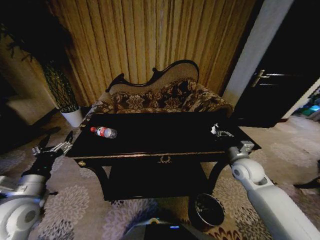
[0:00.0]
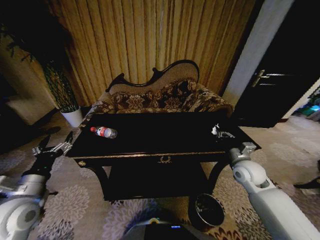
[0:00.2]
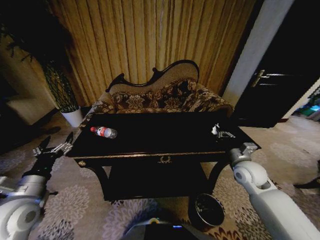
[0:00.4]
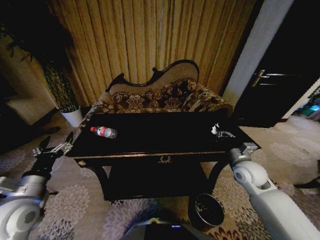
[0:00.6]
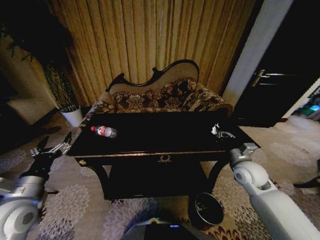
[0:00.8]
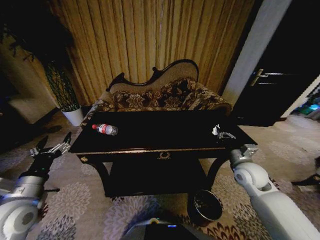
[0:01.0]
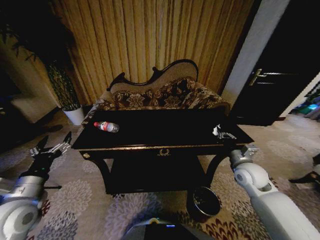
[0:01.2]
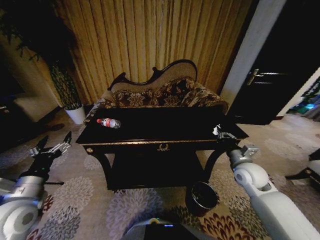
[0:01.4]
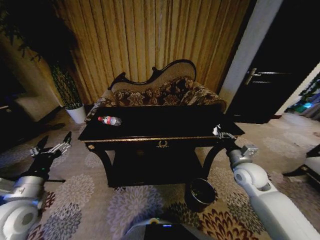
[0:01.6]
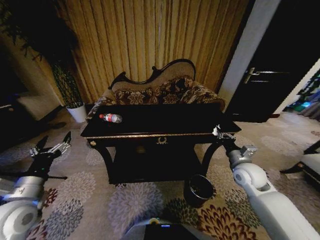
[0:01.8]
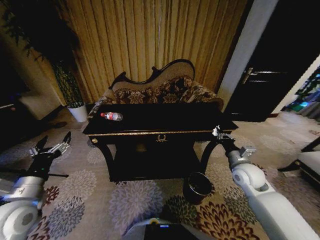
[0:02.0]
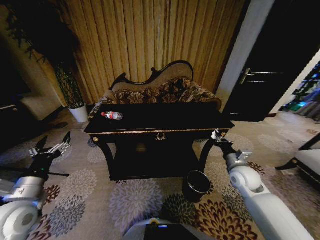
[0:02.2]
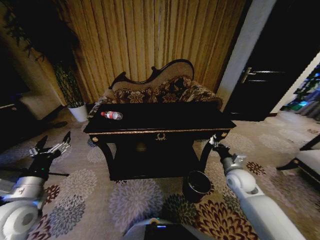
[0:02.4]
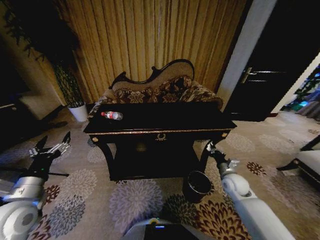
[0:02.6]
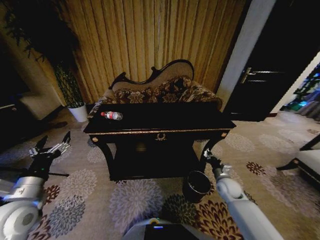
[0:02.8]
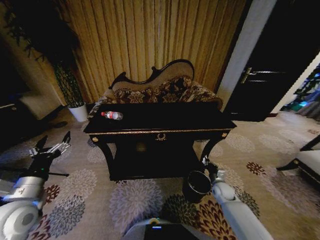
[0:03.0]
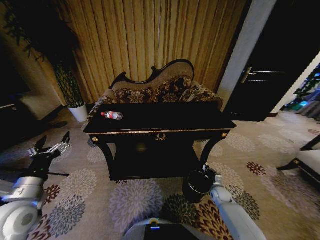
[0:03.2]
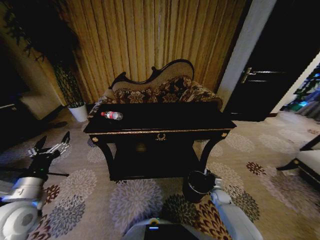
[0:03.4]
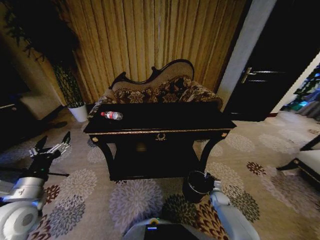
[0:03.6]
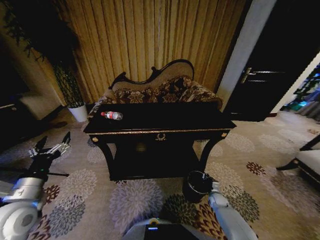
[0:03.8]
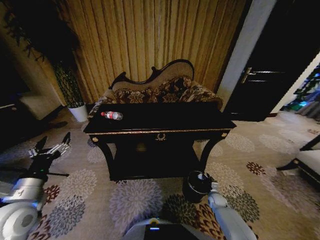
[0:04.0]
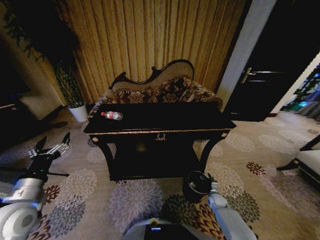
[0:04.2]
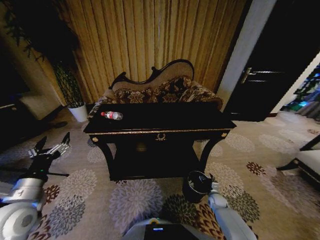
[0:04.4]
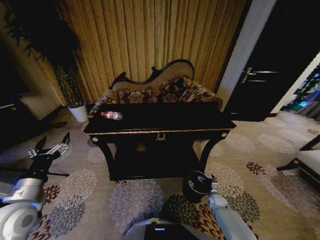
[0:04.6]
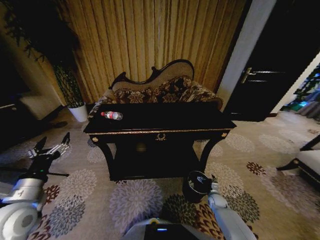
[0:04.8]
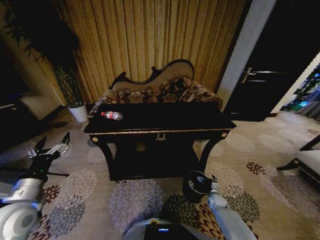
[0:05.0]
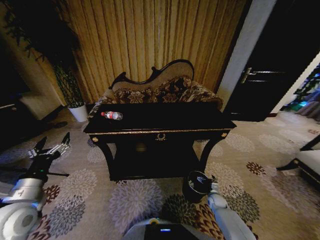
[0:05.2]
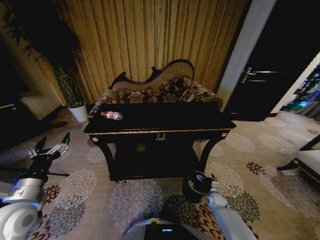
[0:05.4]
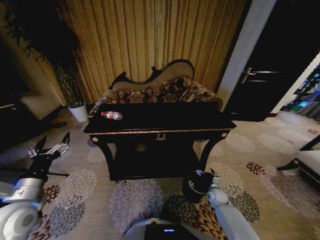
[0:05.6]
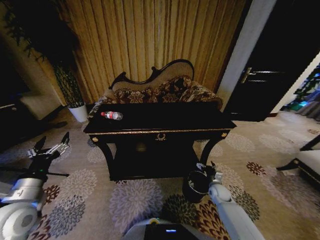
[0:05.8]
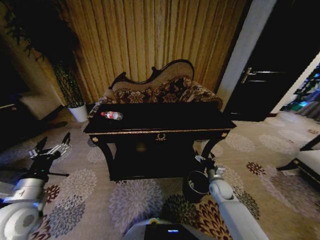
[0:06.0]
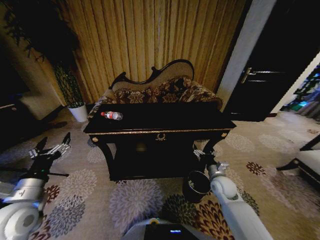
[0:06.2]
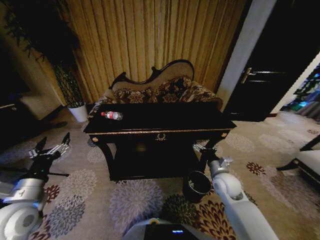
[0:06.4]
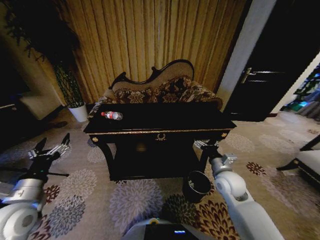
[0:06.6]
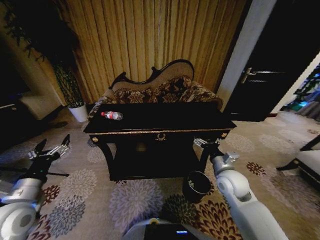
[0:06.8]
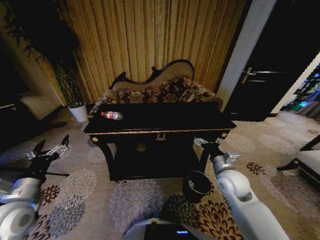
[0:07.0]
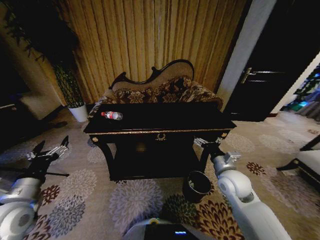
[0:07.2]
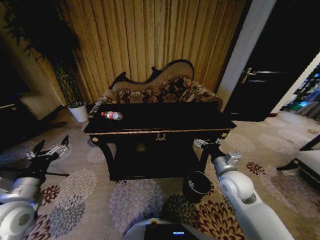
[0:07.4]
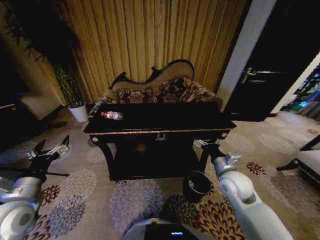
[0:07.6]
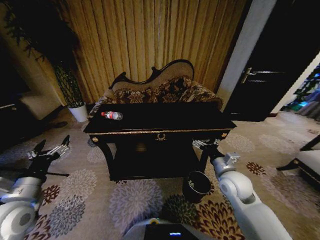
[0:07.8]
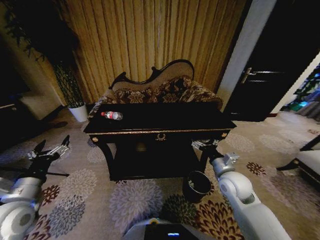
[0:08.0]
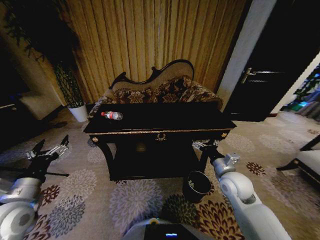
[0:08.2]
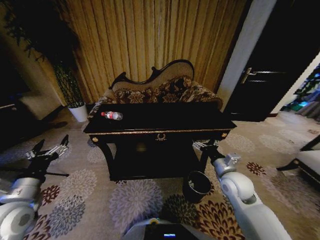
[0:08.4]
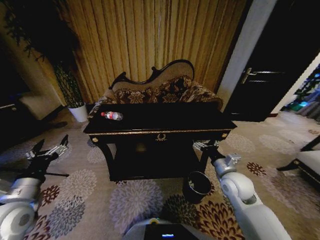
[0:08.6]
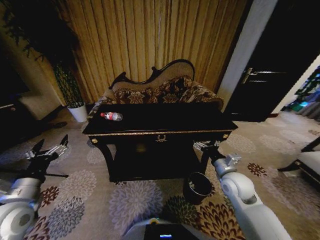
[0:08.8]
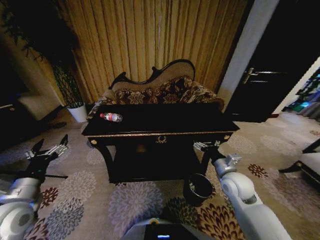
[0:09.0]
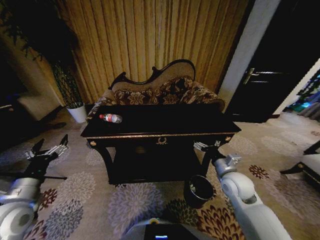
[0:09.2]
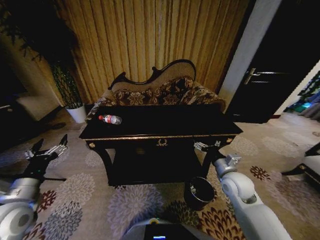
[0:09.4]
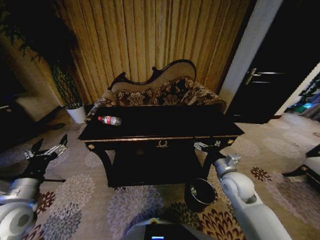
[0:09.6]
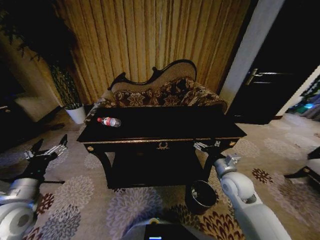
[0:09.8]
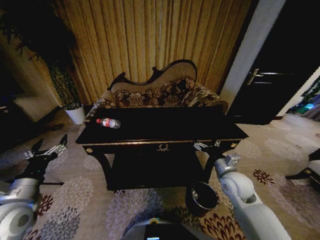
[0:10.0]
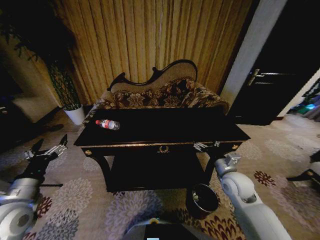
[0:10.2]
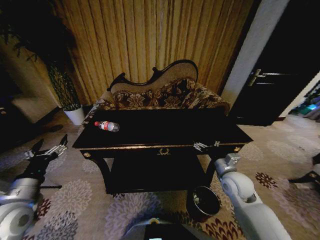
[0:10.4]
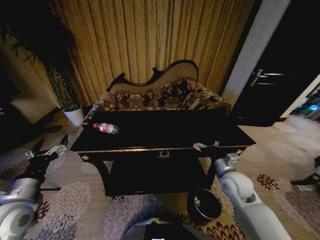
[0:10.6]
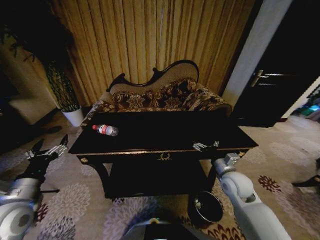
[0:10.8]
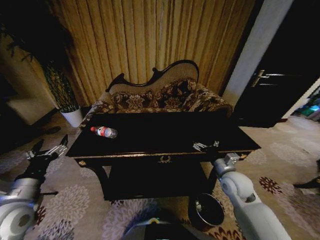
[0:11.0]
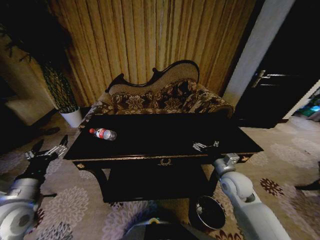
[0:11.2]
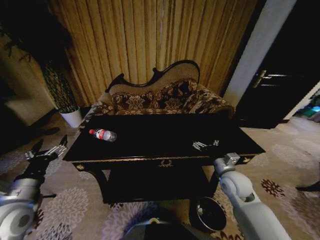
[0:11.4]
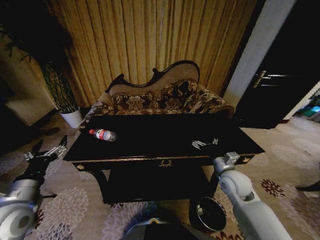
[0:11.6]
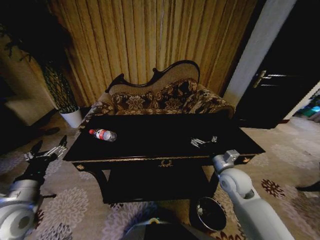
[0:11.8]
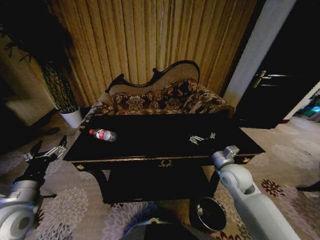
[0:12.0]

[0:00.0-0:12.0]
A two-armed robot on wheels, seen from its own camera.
Task of the whole recording: Move to the front of the table and place the trash on the table into the trash bin.
0:01.6 to 0:03.0: The right gripper moves downward, some 20 cm.
0:03.0 to 0:04.4: The right gripper is displaced downward by approximately 10 cm, and opens.
0:04.4 to 0:06.0: The right gripper travels upward by approximately 15 cm.
0:06.0 to 0:07.6: The right gripper heads upward, covering roughly 15 cm.
0:07.6 to 0:09.0: There are only small adjustments of the grippers.

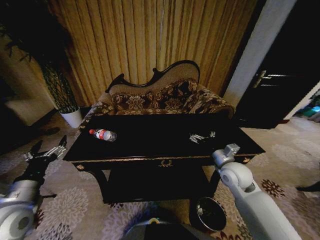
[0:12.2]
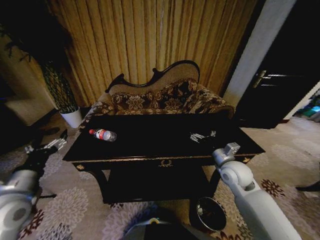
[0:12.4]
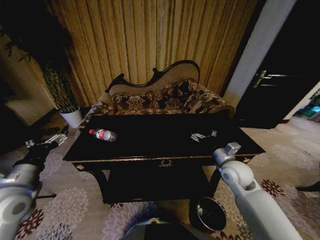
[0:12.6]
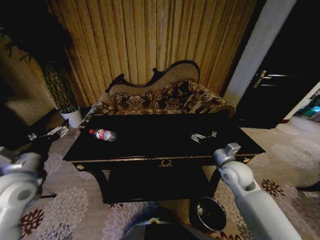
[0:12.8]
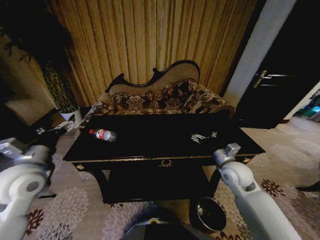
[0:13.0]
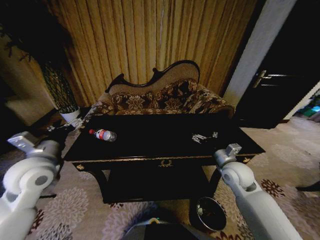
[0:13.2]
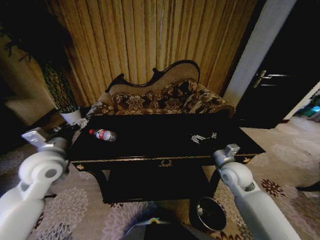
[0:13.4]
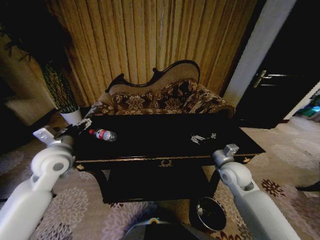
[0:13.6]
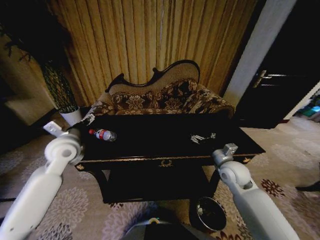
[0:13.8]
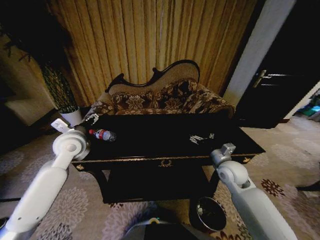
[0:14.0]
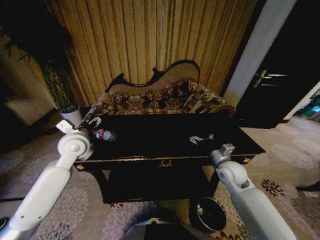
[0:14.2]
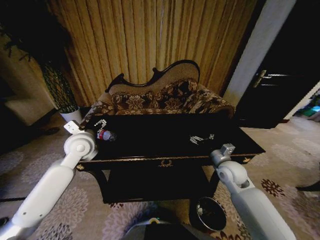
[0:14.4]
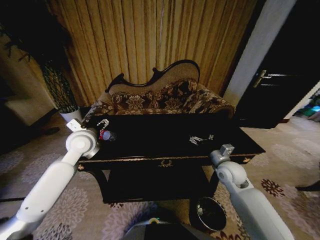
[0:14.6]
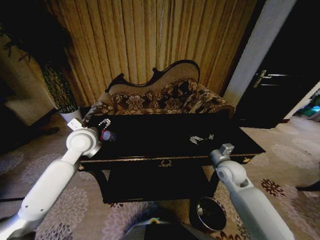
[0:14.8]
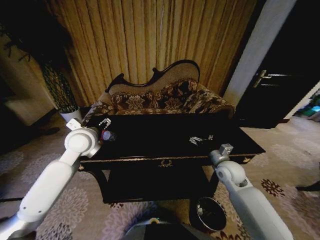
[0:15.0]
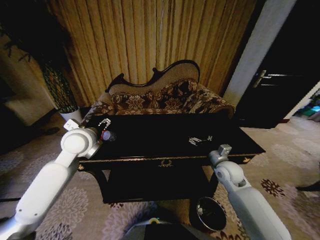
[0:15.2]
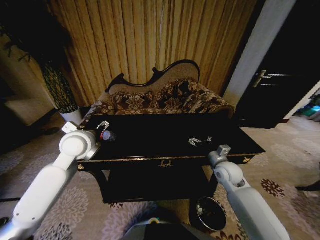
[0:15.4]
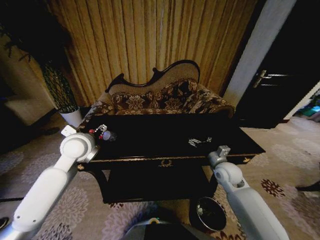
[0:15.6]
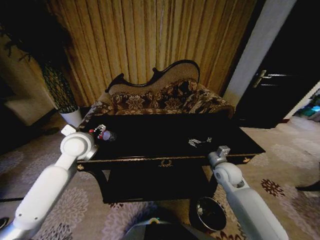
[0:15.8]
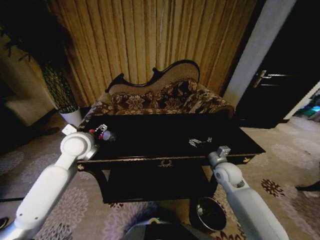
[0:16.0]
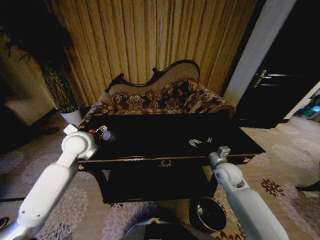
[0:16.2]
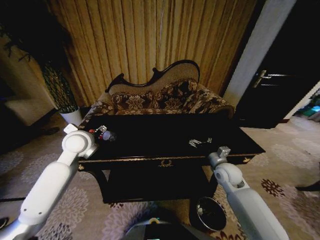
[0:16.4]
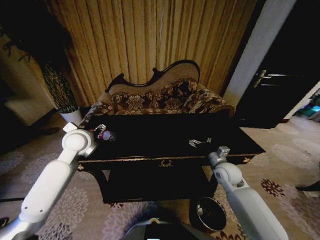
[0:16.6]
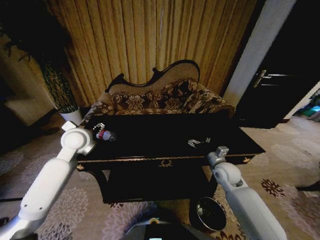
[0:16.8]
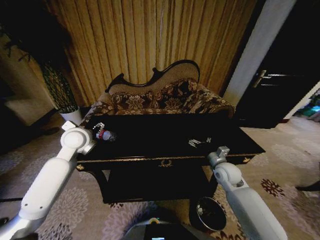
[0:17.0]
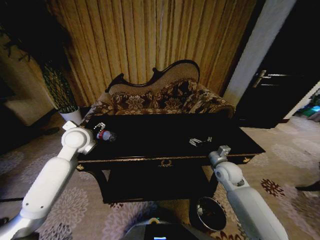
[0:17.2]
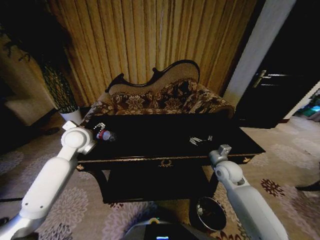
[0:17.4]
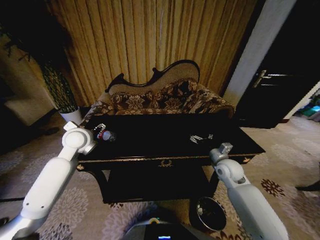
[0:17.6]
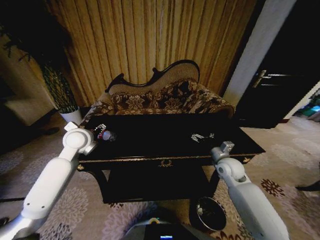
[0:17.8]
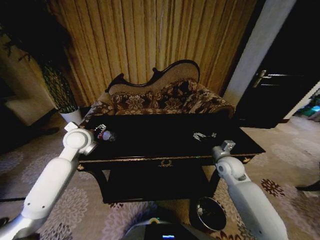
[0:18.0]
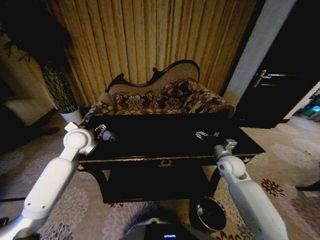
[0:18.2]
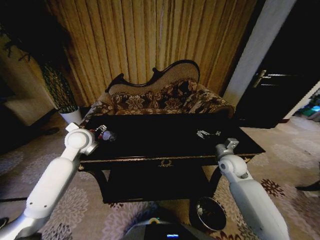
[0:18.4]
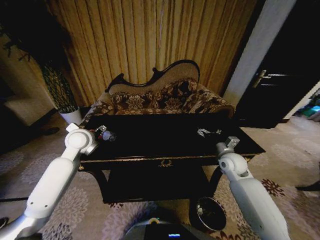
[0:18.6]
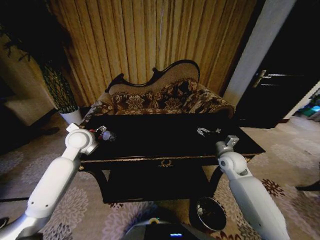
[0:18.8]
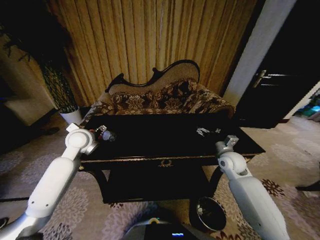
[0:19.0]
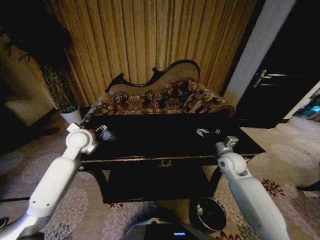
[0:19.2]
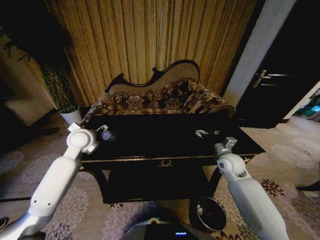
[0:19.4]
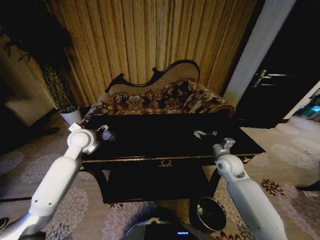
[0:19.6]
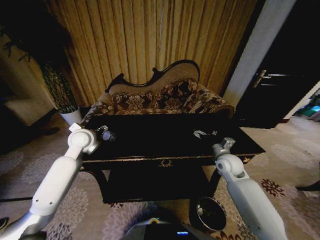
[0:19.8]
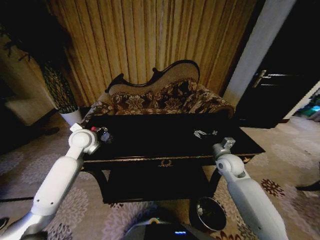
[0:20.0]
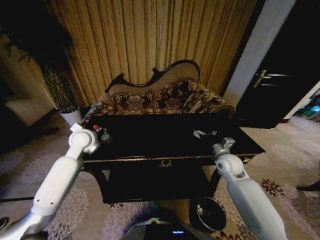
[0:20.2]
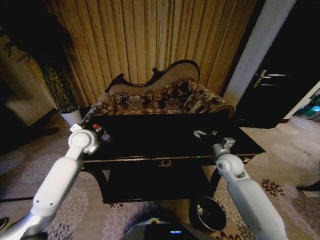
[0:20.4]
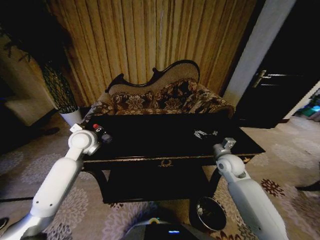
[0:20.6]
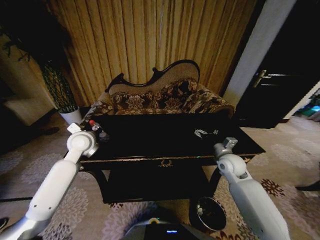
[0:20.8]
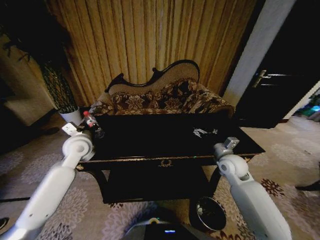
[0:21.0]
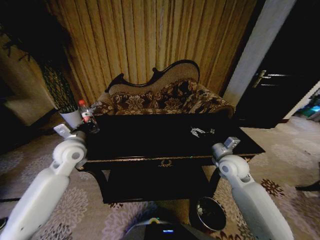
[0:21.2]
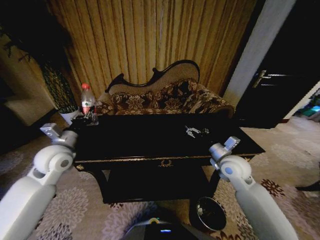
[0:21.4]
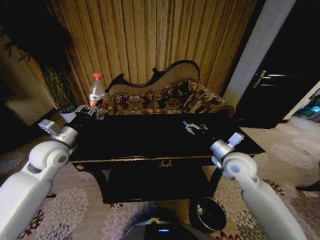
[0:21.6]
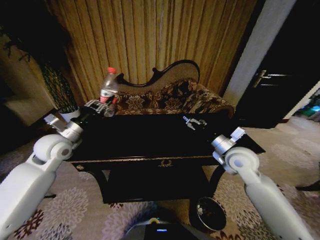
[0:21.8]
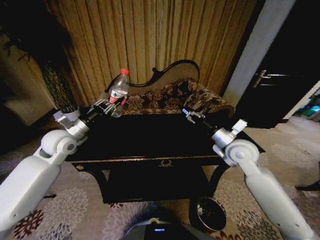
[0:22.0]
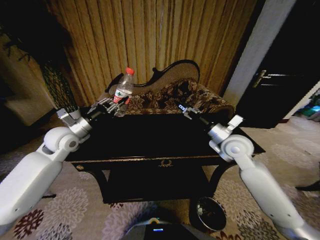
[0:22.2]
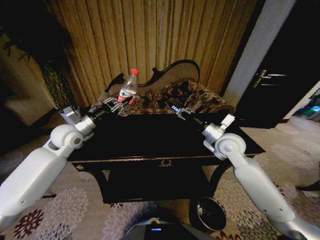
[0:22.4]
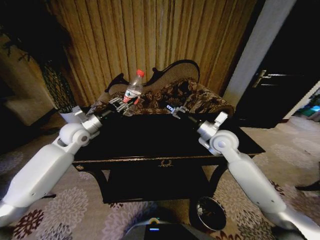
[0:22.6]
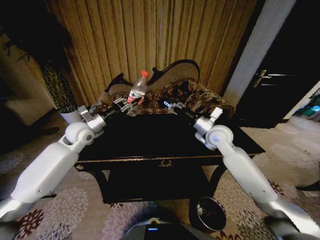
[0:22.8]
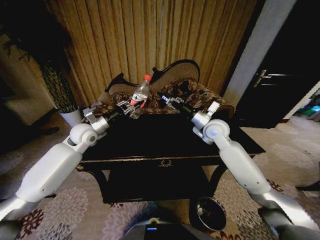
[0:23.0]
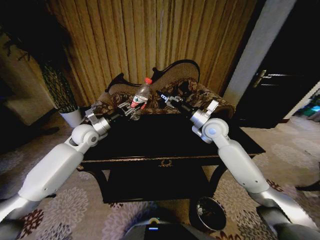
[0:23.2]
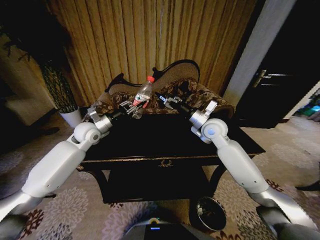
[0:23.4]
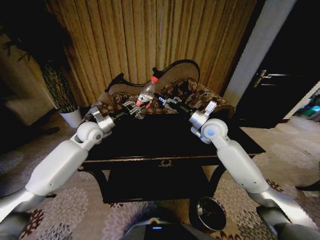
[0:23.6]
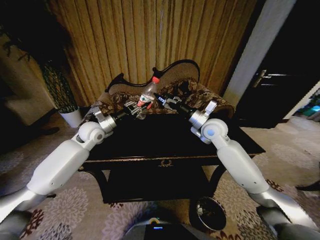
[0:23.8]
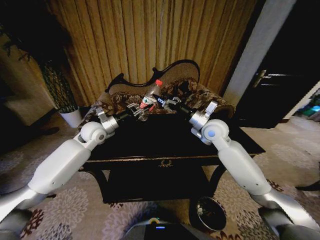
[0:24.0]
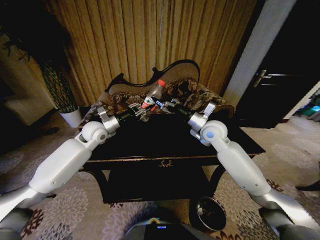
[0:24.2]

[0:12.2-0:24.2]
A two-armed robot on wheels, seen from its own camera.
Task of the whole recording: Move to the front of the table and place the trash on the table into the trash bin.
0:12.2 to 0:13.8: The left gripper travels forward by some 20 cm.
0:13.8 to 0:15.2: The left gripper moves to the right, roughly 5 cm.
0:15.2 to 0:18.2: The grippers make only small movements.
0:18.2 to 0:19.8: The grippers make only small movements.
0:19.8 to 0:21.2: The left gripper is displaced backward by about 5 cm, and closes. Meanwhile the right gripper moves approximately 5 cm.
0:21.2 to 0:22.6: The left gripper moves forward, approximately 10 cm, while the right gripper shifts some 10 cm upward and forward.
0:22.6 to 0:24.2: The left gripper moves to the right, some 5 cm. Meanwhile the right gripper changes place by about 5 cm.
